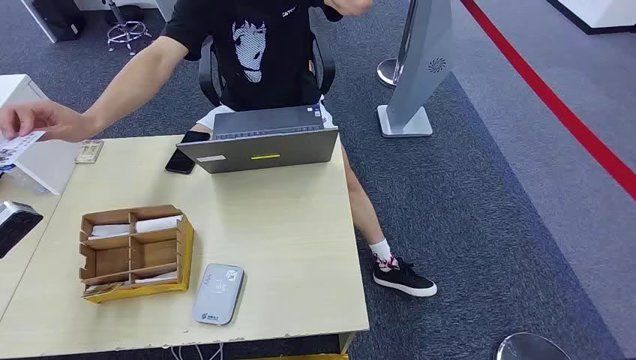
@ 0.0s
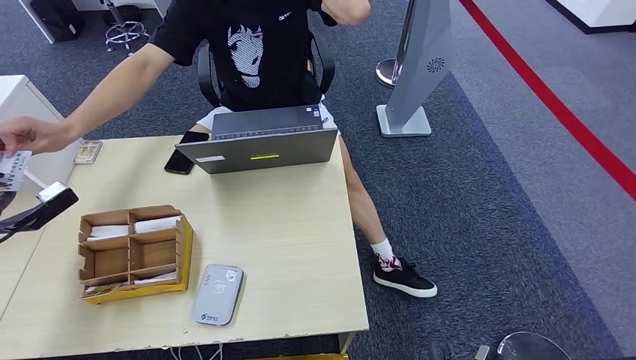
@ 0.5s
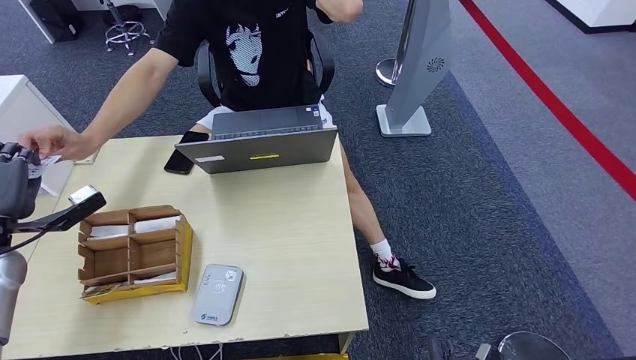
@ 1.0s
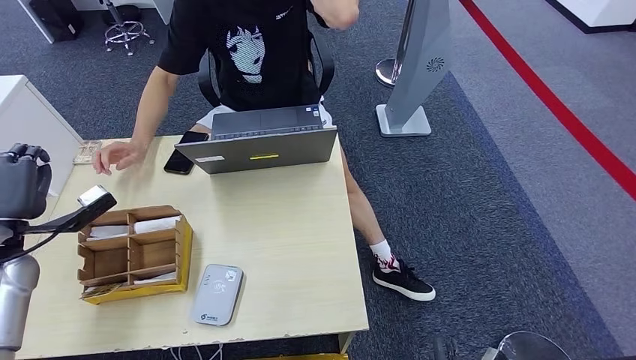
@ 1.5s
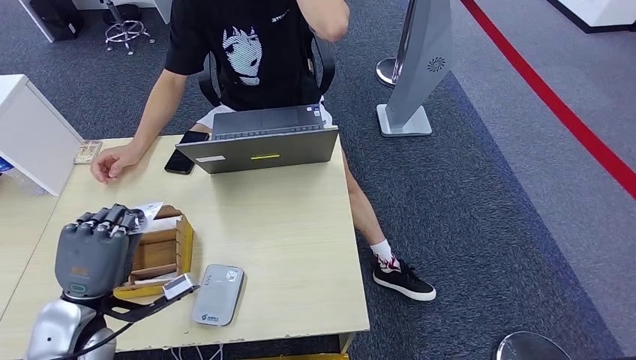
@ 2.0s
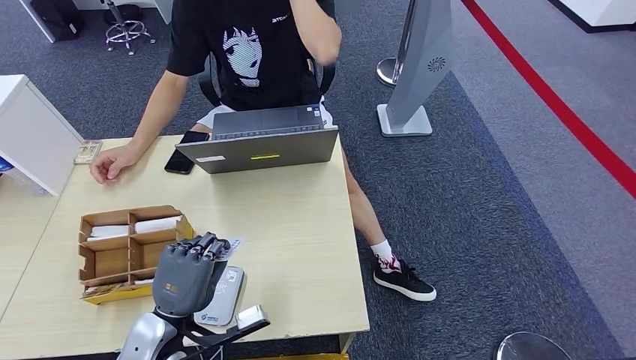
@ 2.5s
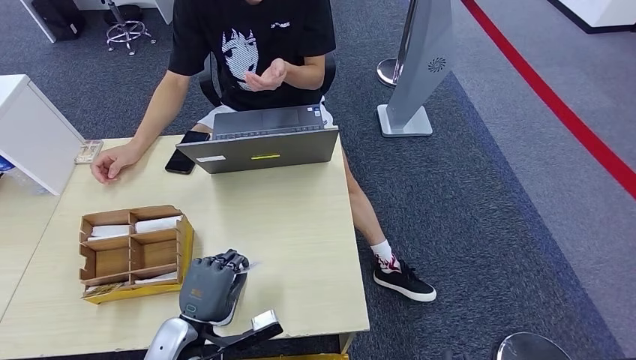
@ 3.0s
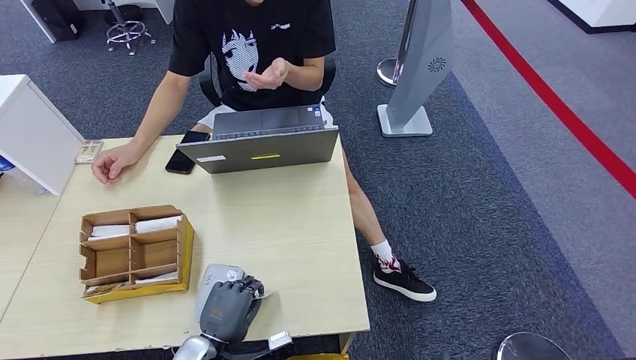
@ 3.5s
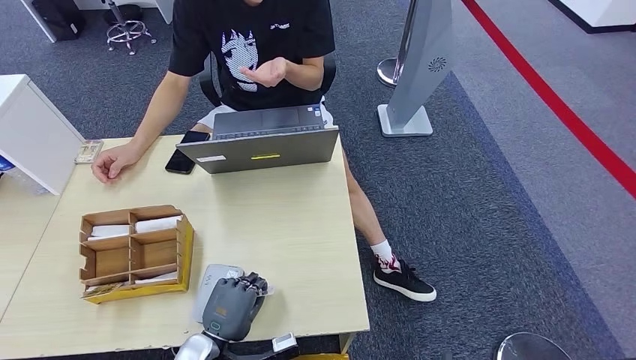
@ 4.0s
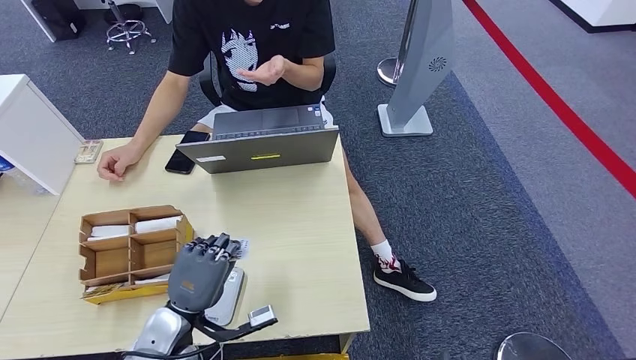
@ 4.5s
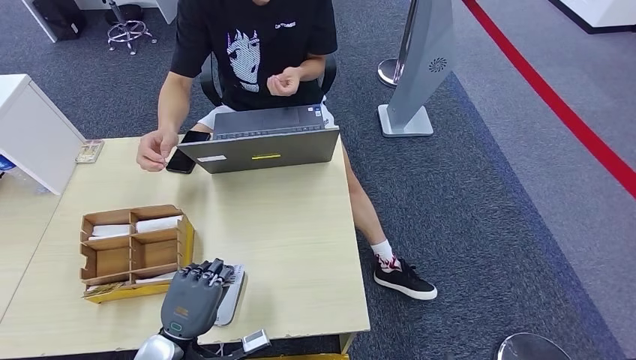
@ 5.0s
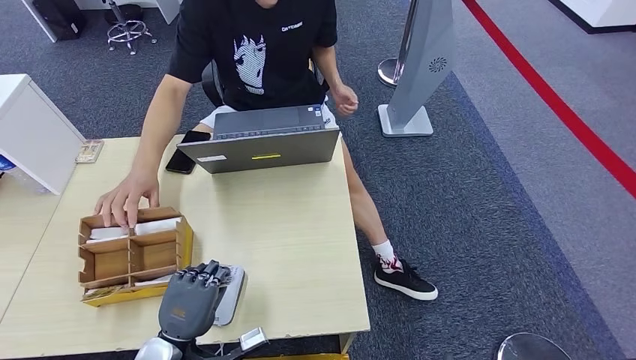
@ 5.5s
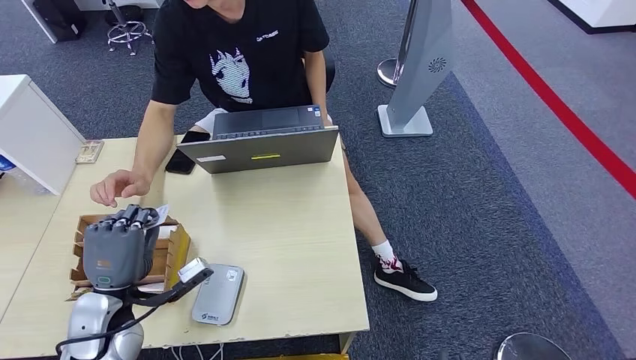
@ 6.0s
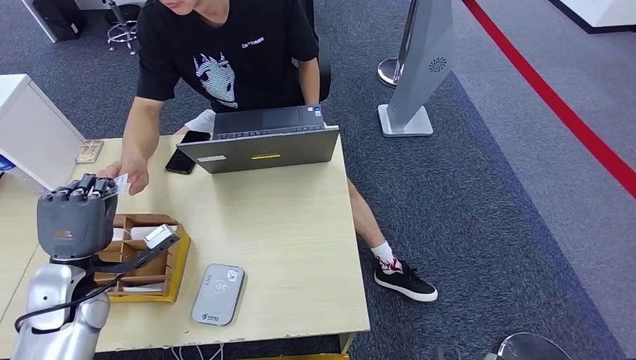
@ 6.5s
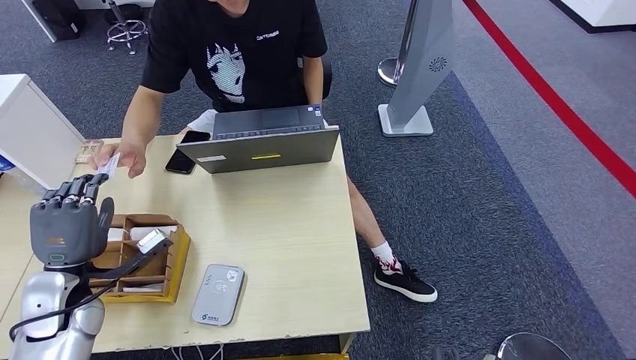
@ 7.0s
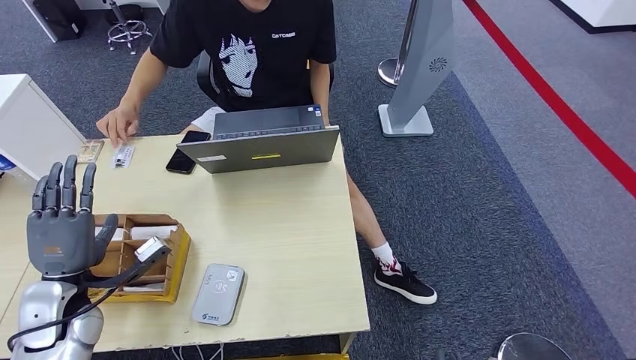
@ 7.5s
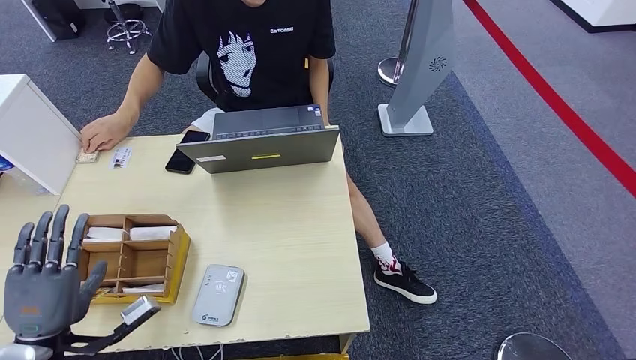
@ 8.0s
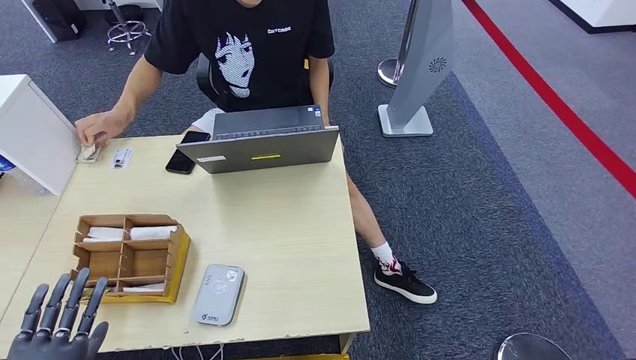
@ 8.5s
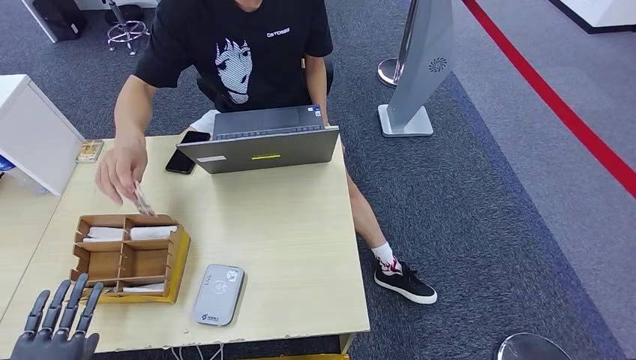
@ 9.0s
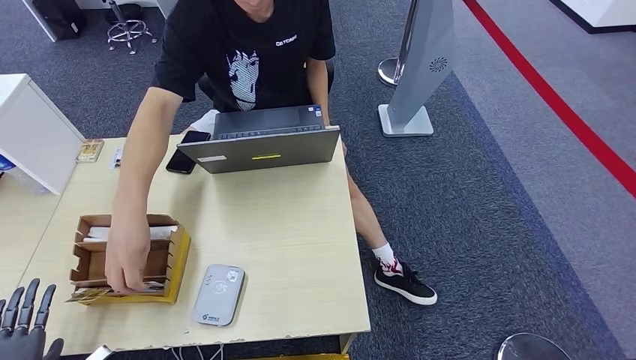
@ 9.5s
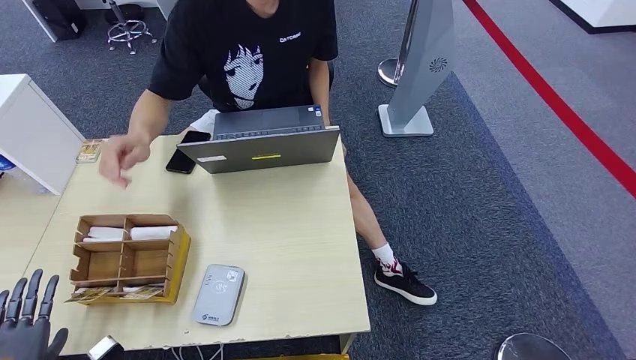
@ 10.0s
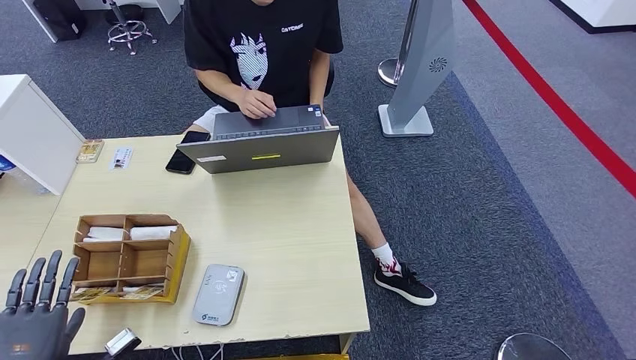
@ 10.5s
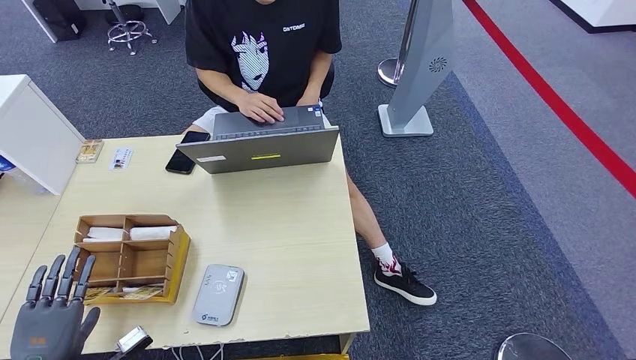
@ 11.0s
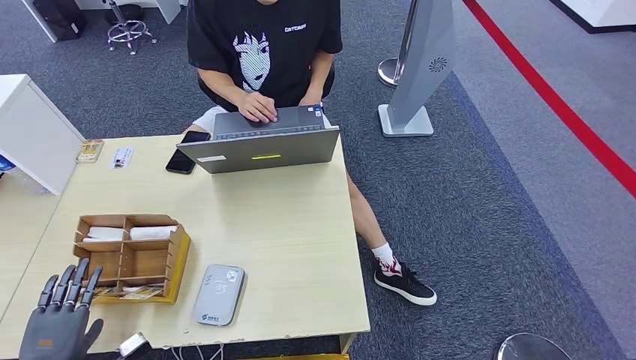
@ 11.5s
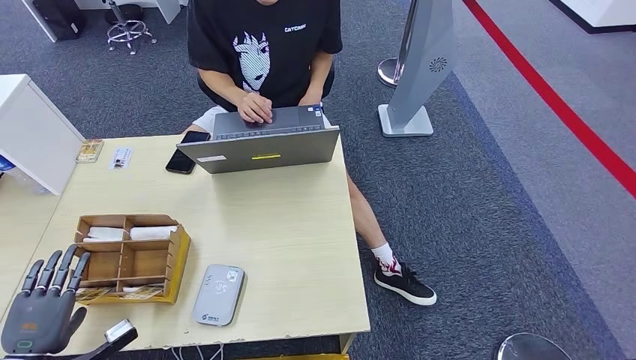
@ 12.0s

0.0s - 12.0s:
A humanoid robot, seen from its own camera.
Step, 0.0s - 2.0s: Take the ID card from the person's hand.
Step, 2.5s - 5.5s: Place the ID card on the card reader.
Step, 6.0s - 8.5s: Hand the ID card to the person.
2.0s - 4.0s: The left hand moves to the right, downward and backward, roughly 20 cm.
4.0s - 6.0s: The left hand goes roughly 15 cm to the left, upward and forward.
6.0s - 8.0s: The left hand heads to the left and backward, covering some 10 cm.
8.0s - 10.0s: The left hand heads to the left, downward and backward, covering about 15 cm.

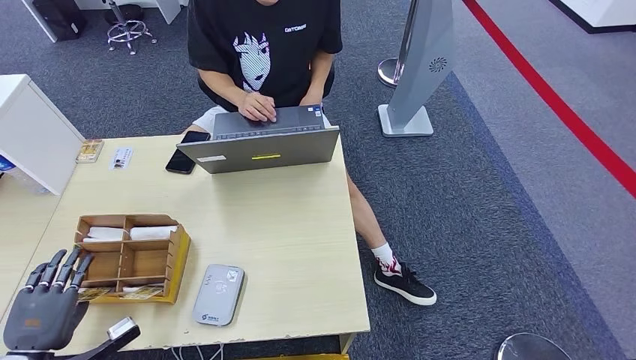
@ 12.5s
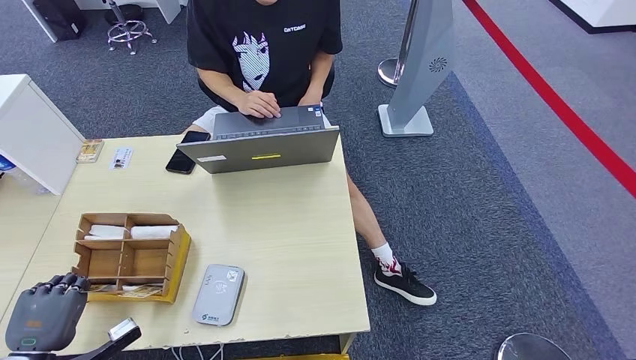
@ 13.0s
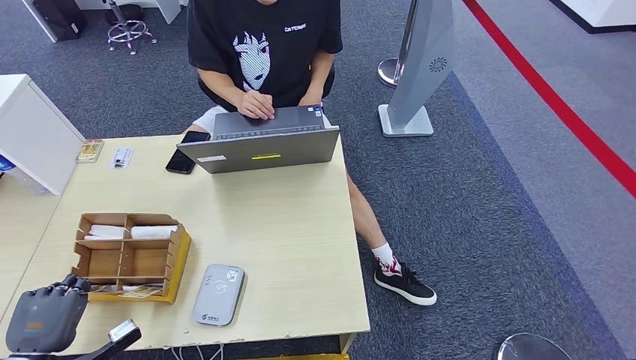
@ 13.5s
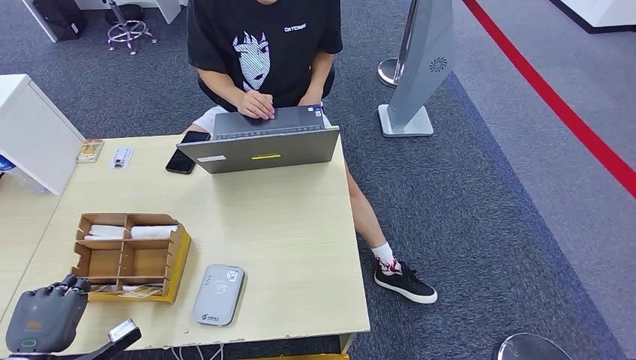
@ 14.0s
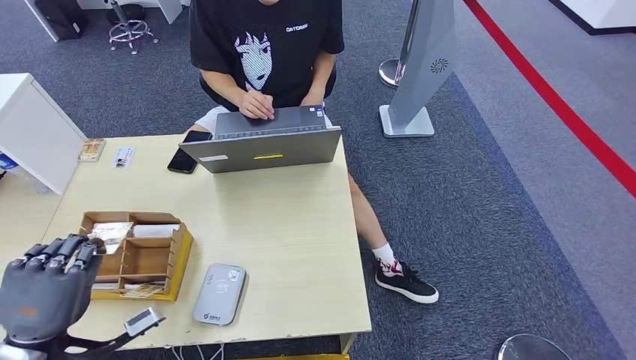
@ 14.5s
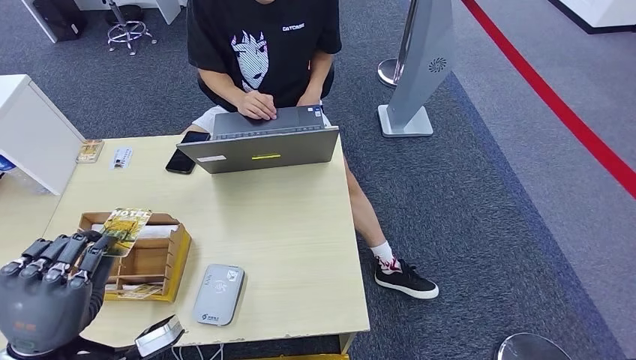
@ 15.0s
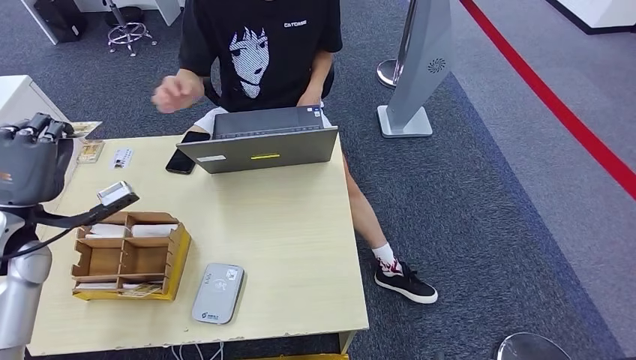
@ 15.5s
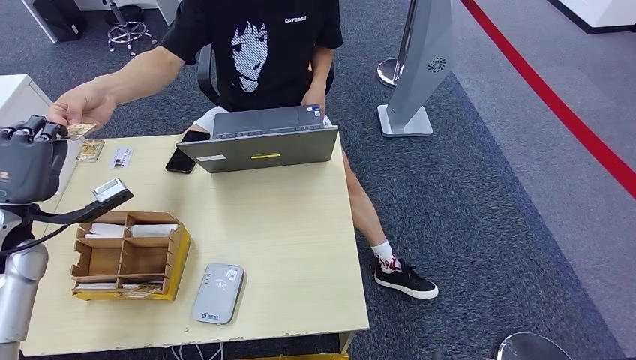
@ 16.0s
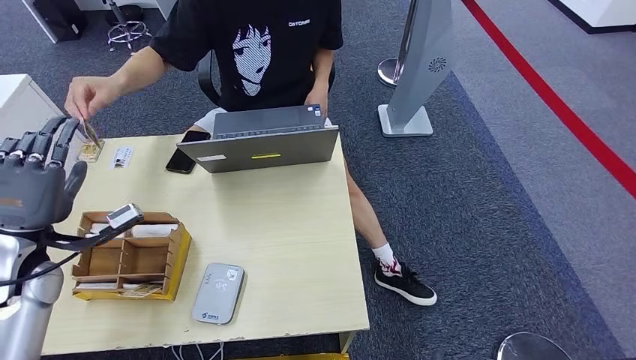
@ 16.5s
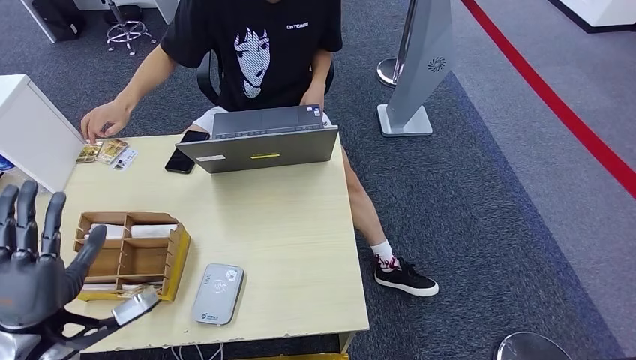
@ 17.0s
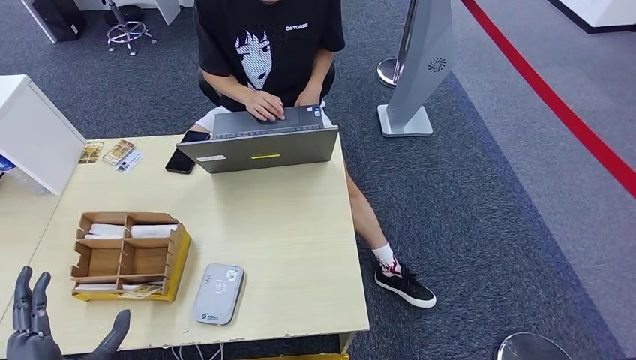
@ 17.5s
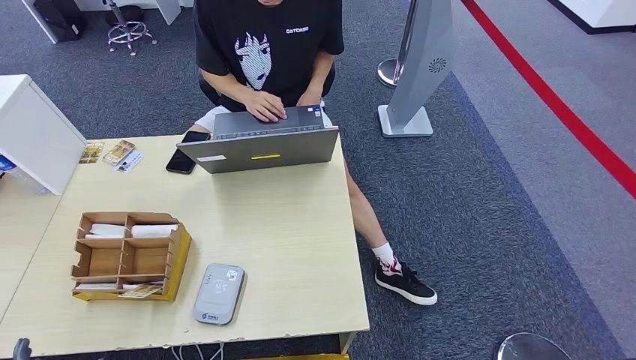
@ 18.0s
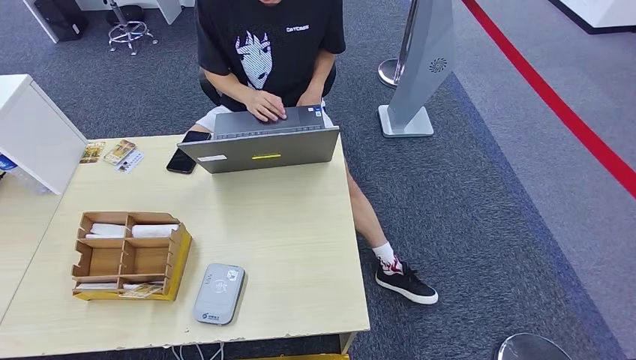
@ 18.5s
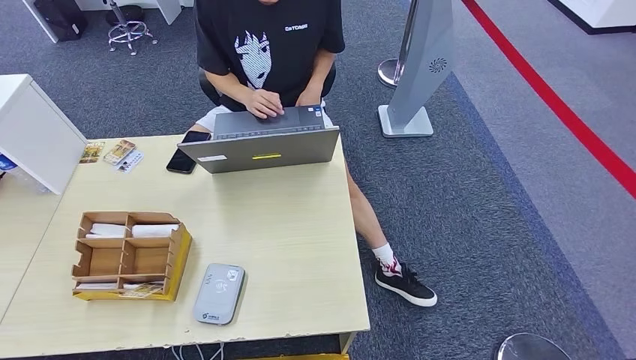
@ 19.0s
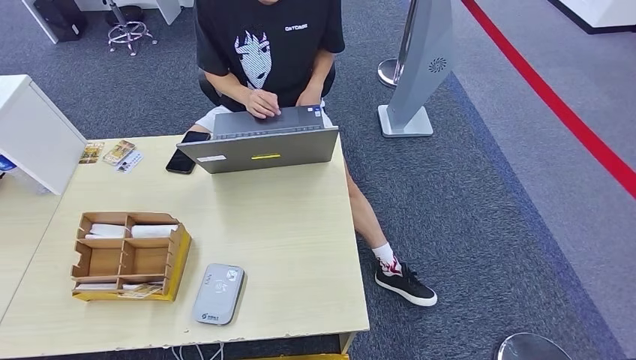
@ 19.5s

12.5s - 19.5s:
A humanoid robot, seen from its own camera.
Step, 12.5s - 15.0s: Pick up the room key from the key card box.
Step, 15.5s - 19.5s: Hand the room key to the person.
12.5s - 14.5s: The left hand shifts roughly 10 cm upward and to the right.
16.0s - 17.5s: The left hand shifts roughly 25 cm backward and downward.
17.5s - 19.5s: The left hand moves downward and backward, approximately 25 cm. Meanwhile the right hand is displaced to the left by approximately 5 cm.

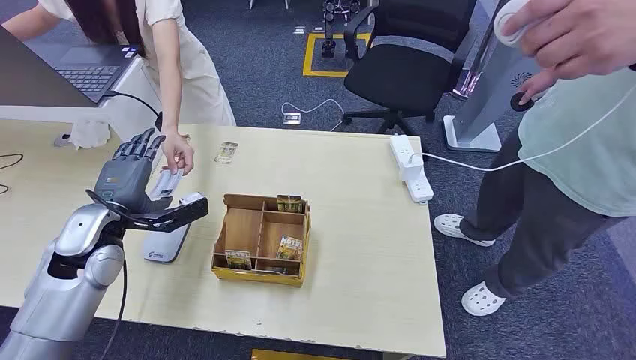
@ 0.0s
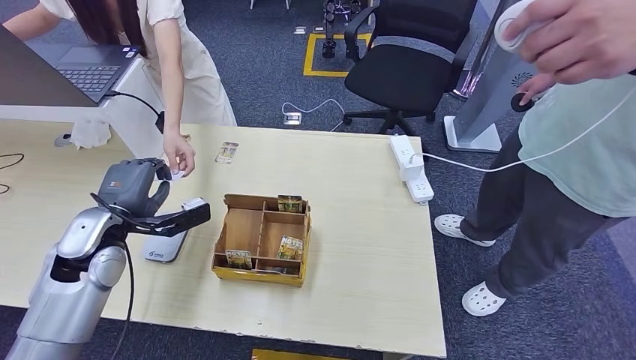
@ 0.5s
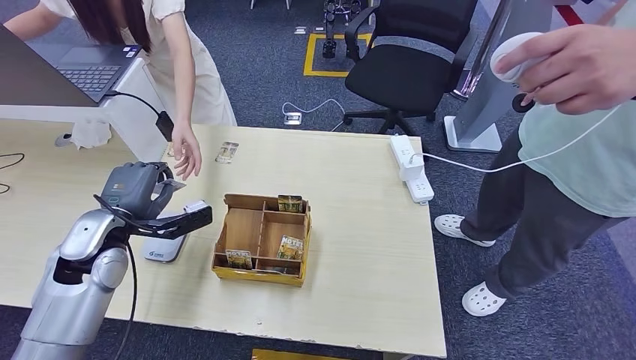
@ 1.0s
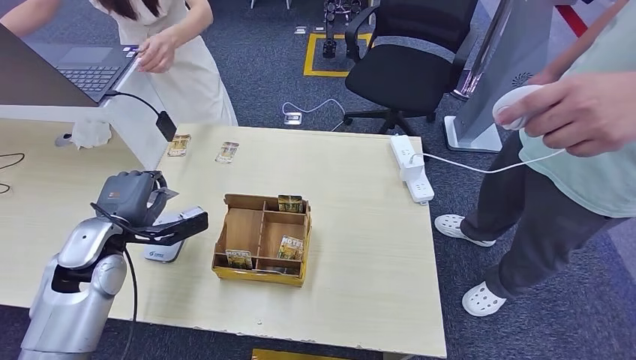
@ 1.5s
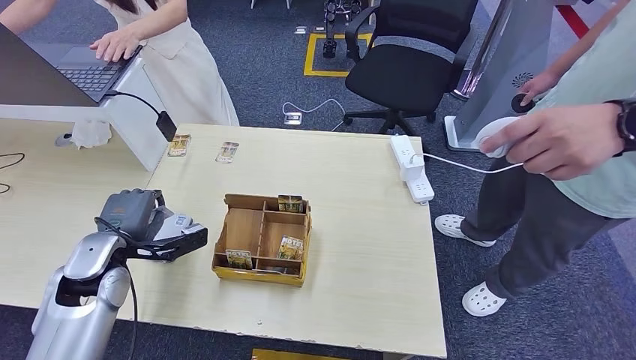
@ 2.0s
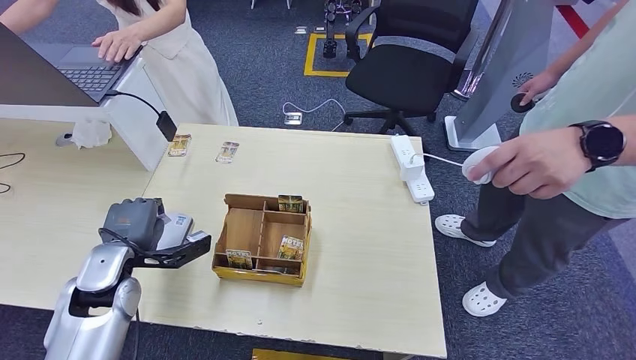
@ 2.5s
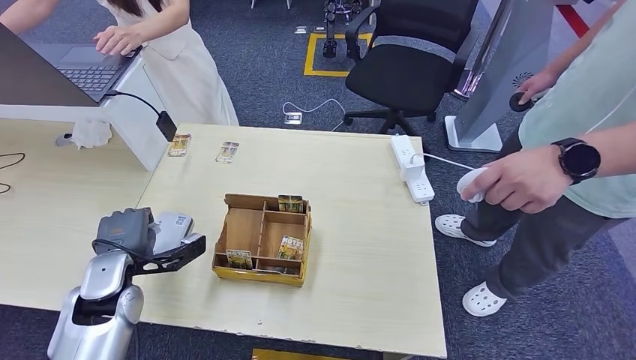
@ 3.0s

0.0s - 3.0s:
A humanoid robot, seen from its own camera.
Step, 0.0s - 0.5s: Take the ID card from the person's hand.
1.5s - 3.0s: The left hand moves approximately 5 cm.
